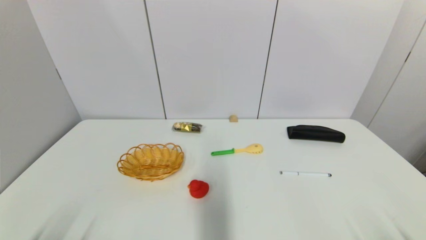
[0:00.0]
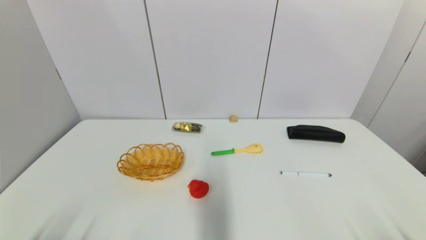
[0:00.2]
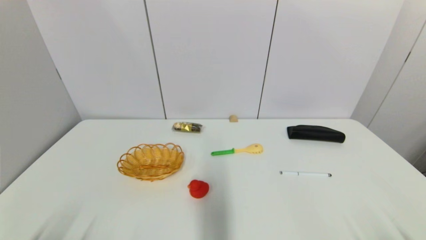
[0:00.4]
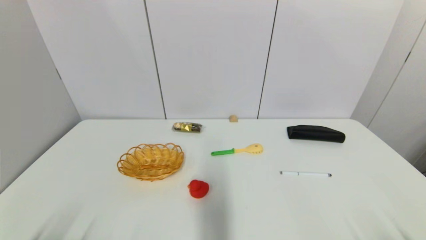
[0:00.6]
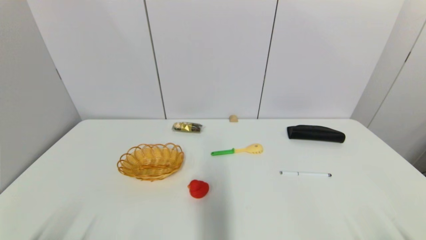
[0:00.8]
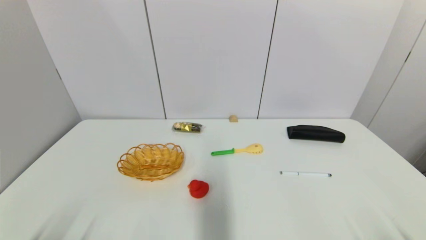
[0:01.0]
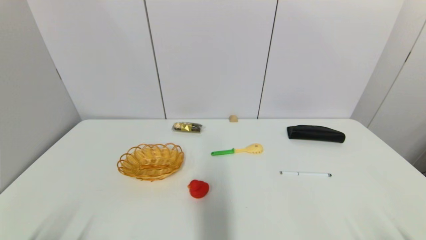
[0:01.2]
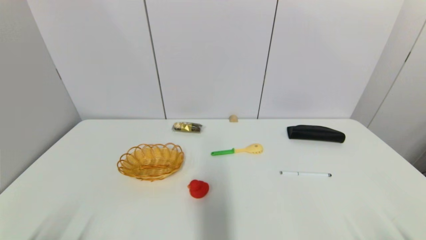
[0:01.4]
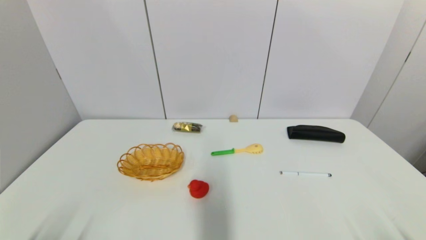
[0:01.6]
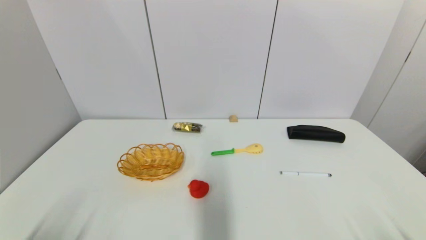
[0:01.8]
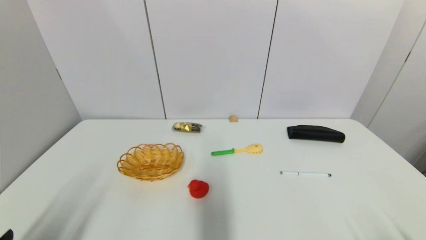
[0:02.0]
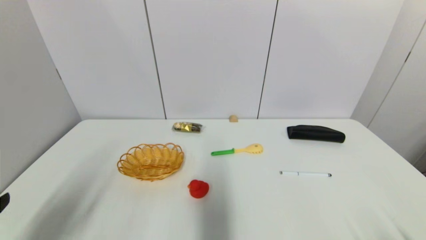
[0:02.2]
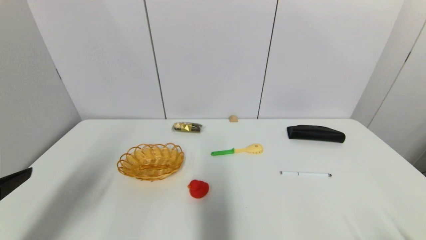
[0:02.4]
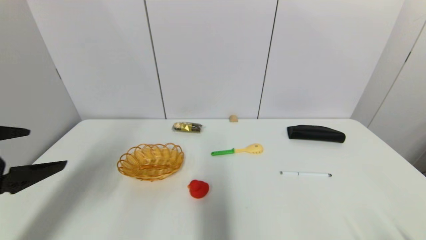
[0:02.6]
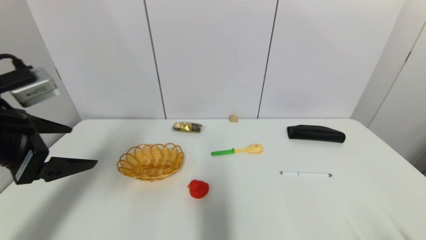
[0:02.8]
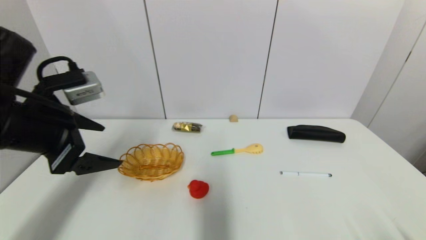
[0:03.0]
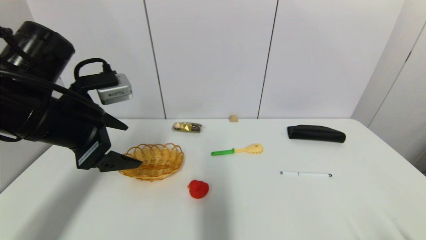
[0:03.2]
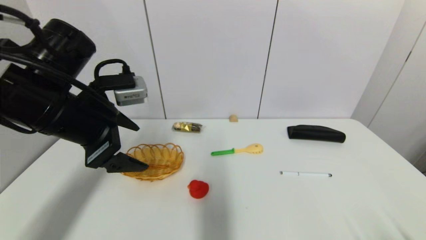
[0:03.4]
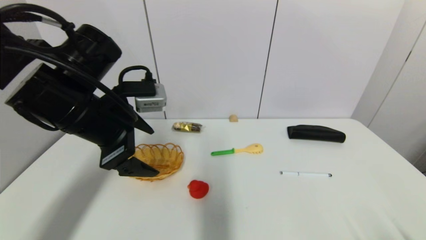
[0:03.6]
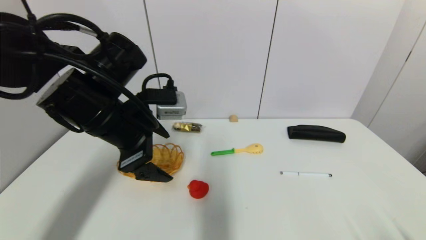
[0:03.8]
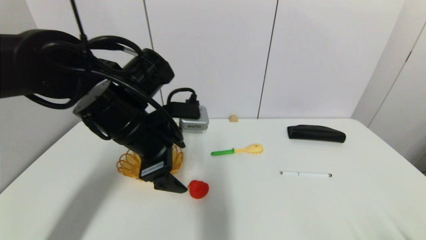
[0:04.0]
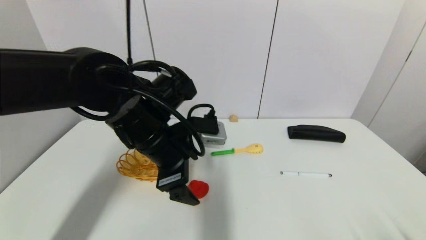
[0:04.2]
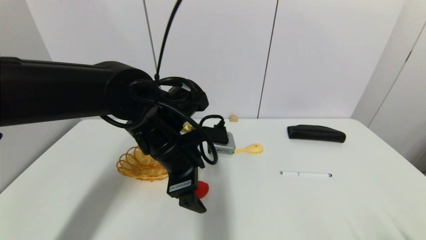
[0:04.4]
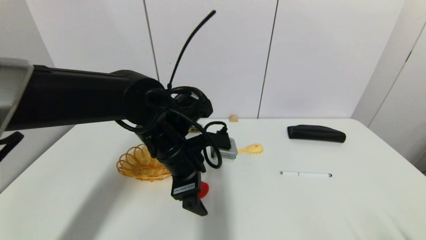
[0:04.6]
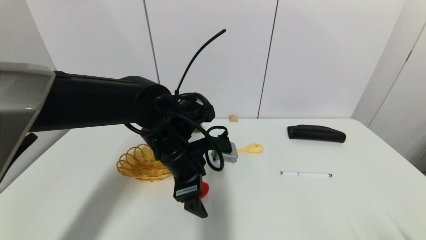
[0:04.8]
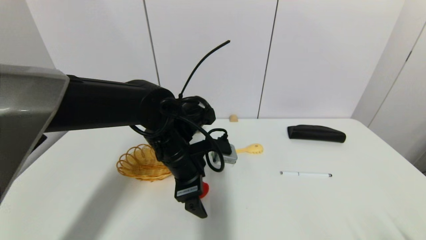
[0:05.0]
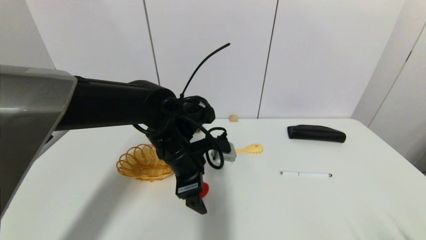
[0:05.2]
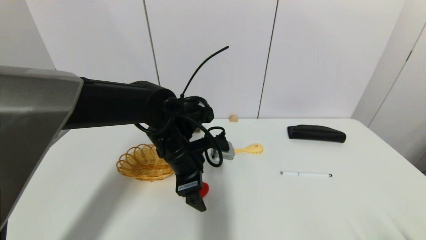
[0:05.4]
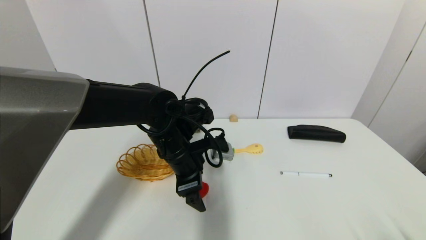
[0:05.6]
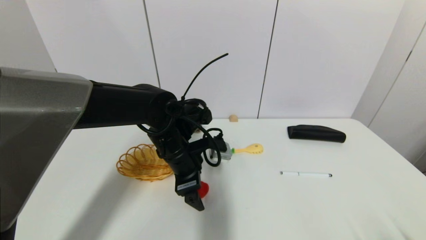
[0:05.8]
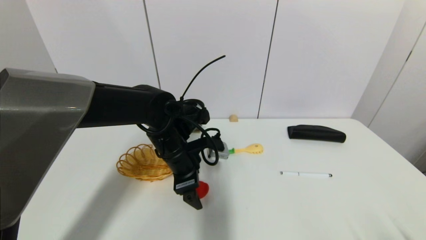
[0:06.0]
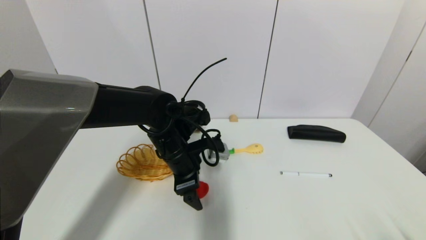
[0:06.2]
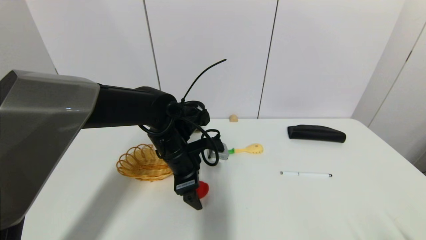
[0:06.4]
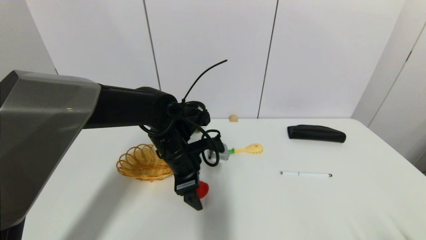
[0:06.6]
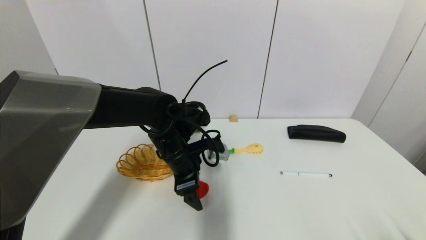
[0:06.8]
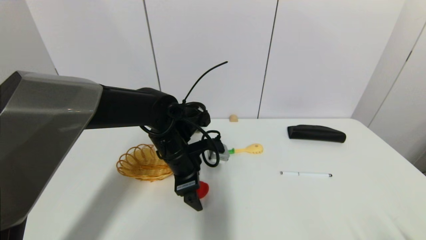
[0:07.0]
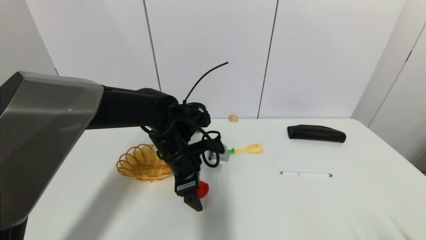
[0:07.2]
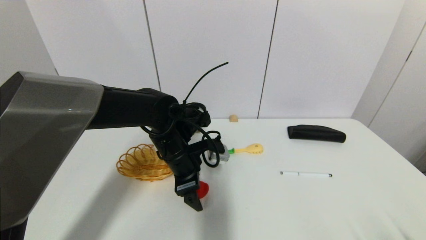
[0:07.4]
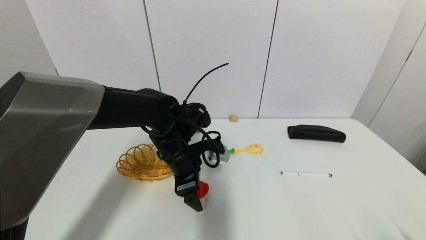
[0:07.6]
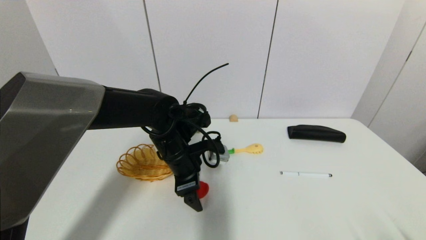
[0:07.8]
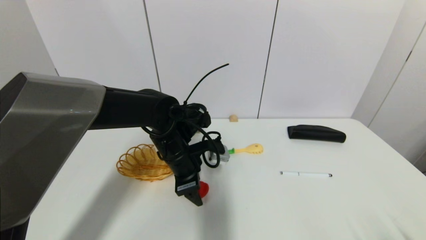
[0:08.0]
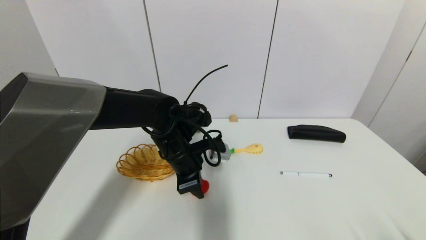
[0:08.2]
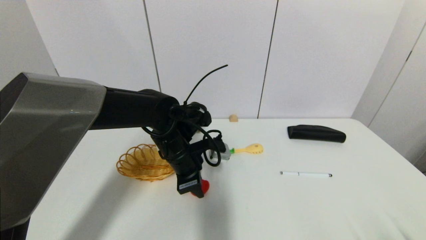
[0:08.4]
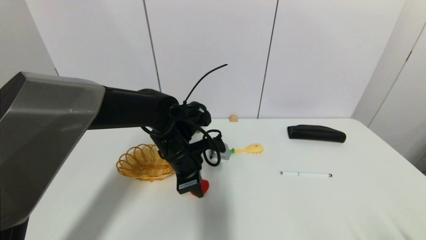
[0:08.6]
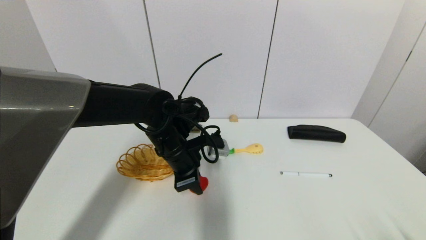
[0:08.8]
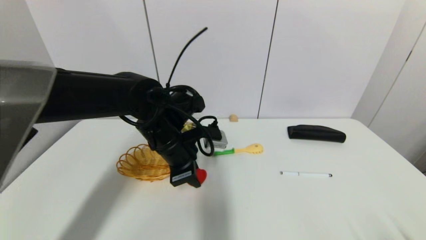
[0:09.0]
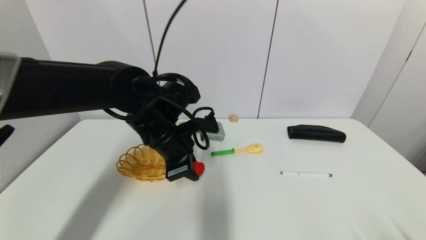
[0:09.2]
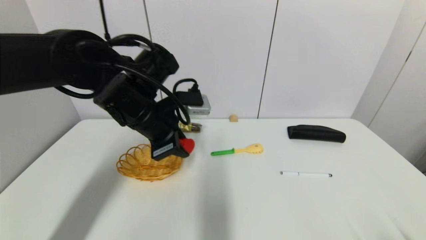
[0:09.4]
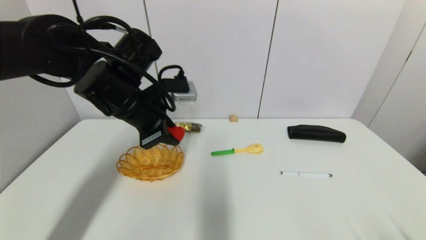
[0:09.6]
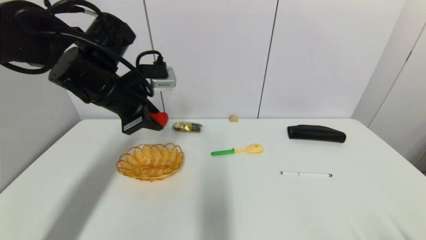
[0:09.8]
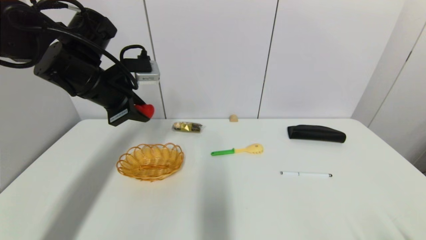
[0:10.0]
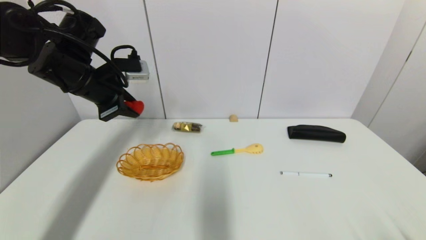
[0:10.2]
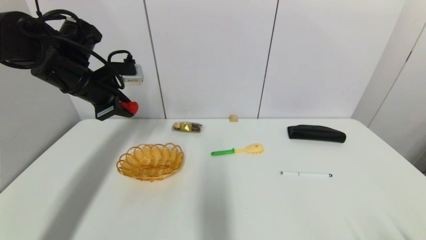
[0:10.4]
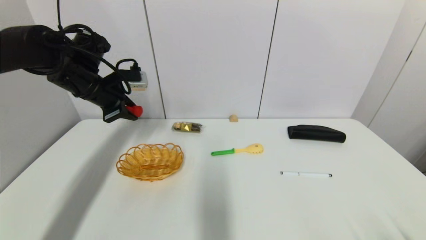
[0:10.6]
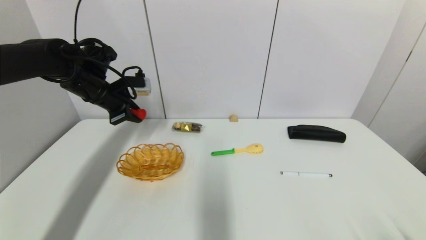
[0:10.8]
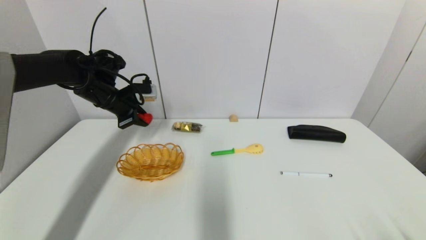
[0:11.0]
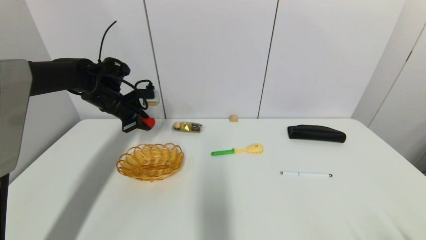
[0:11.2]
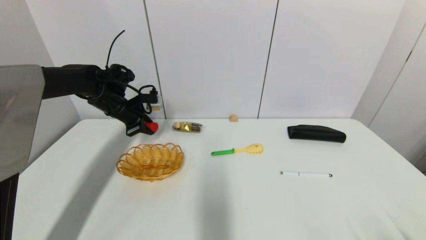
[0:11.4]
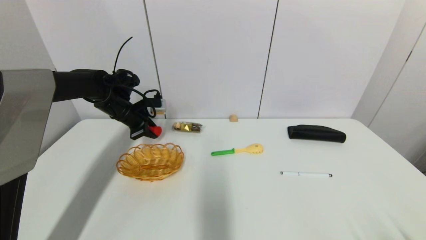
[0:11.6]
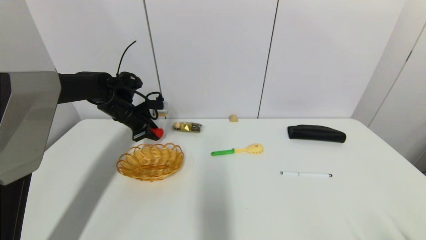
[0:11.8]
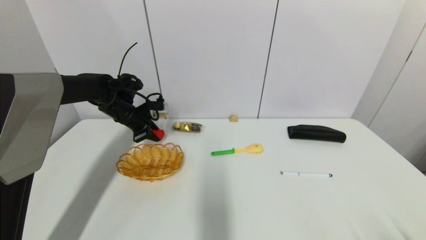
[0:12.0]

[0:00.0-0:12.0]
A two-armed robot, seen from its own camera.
Step, 0:02.0 to 0:09.0: Grasp the red duck with left gripper.
0:00.0 to 0:01.6: Both grippers stay put.
0:01.6 to 0:03.0: The left gripper is displaced forward and upward by about 30 cm.
0:03.0 to 0:04.4: The left gripper moves to the right and downward, roughly 20 cm.
0:04.4 to 0:06.0: The left gripper travels downward by some 5 cm.
0:06.0 to 0:07.6: The two grippers keep their place.
0:07.6 to 0:09.0: The left gripper closes.
0:09.0 to 0:10.4: The left gripper travels to the left and upward by approximately 20 cm.
0:10.4 to 0:12.0: The left gripper heads downward and forward, covering some 15 cm.

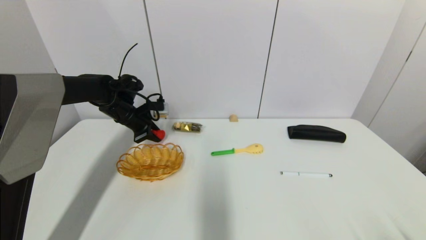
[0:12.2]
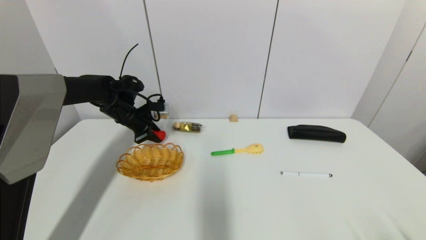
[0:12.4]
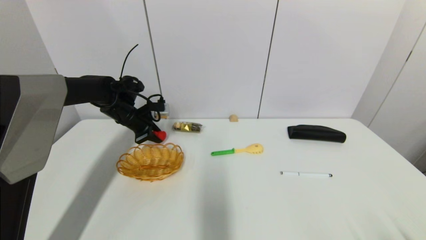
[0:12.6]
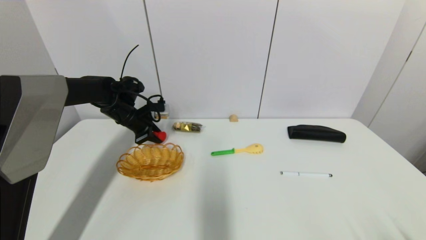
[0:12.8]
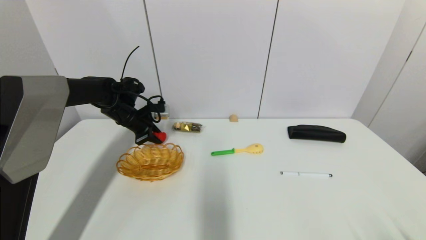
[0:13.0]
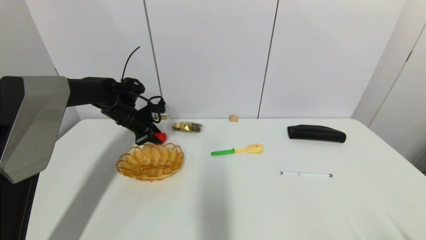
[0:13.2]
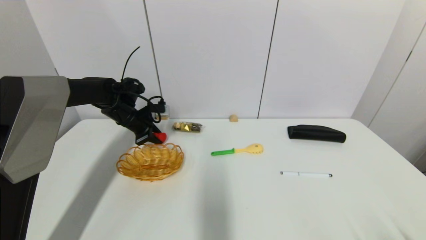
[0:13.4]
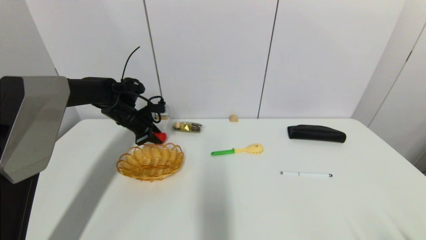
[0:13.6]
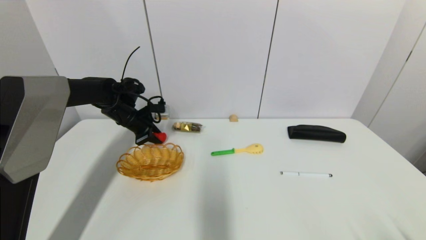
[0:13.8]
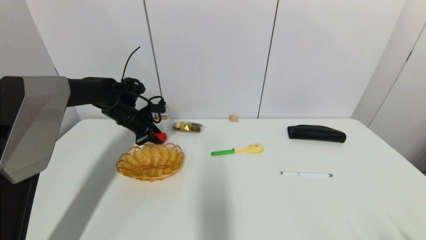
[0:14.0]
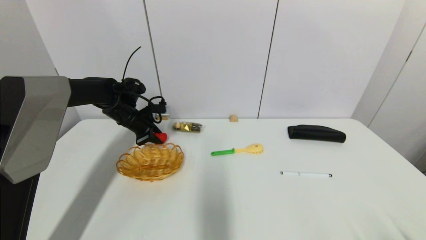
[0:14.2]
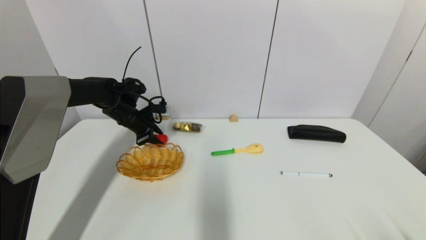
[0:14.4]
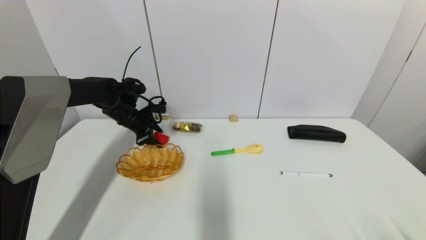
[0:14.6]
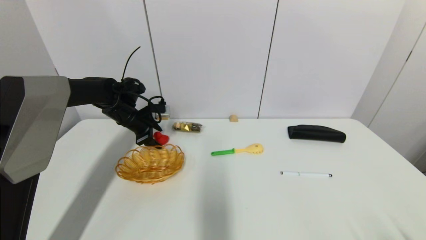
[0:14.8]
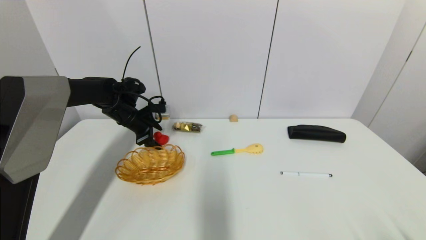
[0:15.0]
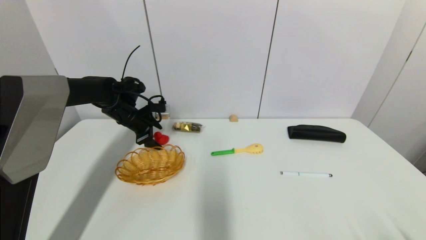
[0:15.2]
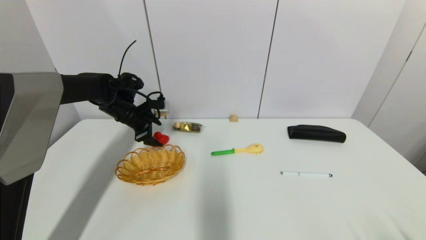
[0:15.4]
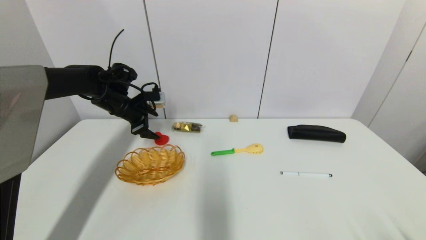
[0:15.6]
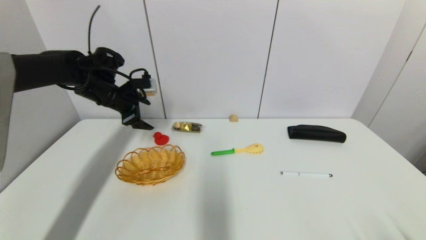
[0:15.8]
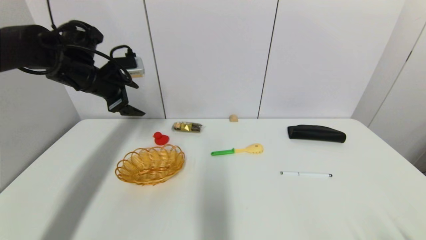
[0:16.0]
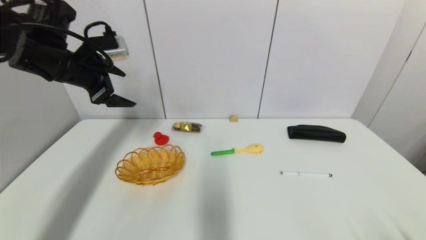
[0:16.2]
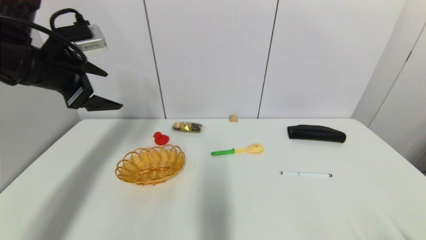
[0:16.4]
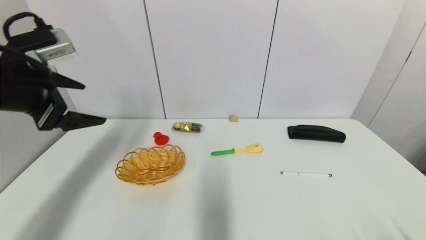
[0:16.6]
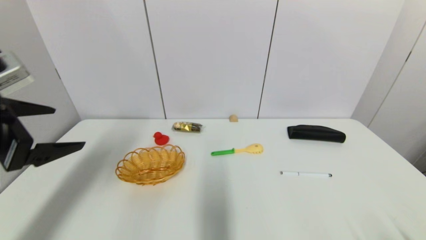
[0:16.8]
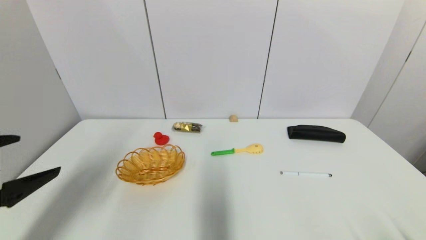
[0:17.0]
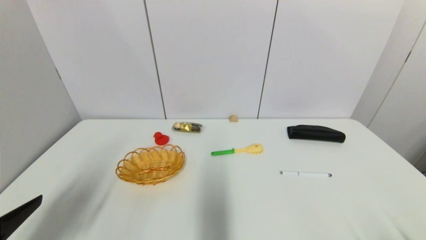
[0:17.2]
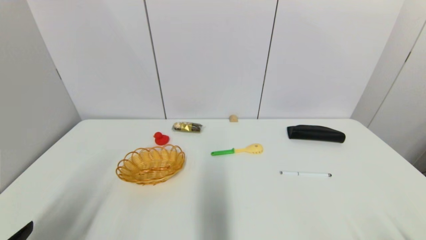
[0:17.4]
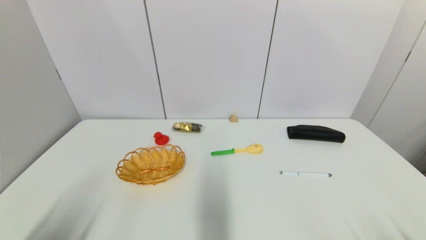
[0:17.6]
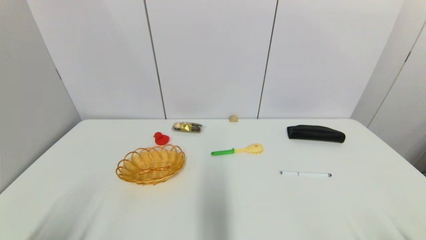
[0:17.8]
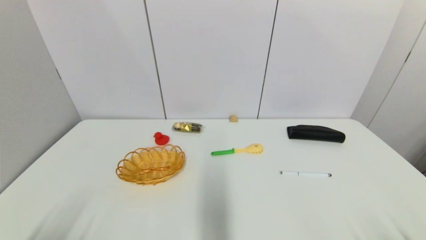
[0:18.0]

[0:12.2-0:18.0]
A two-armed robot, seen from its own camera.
Step, 0:12.2 to 0:15.4: Place the red duck on the table with left gripper.
0:12.2 to 0:13.6: Both grippers stay about where they are.
0:13.6 to 0:15.0: The left gripper opens its fingers.
0:15.0 to 0:16.6: The left gripper goes some 30 cm backward and upward.
0:16.6 to 0:18.0: The left gripper shifts some 30 cm backward and downward.
